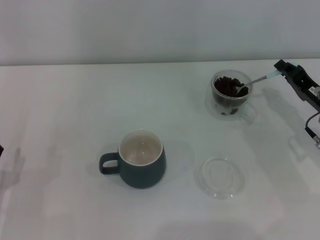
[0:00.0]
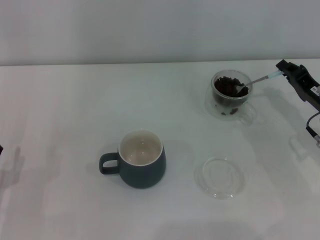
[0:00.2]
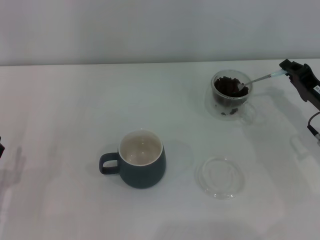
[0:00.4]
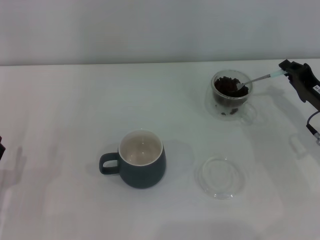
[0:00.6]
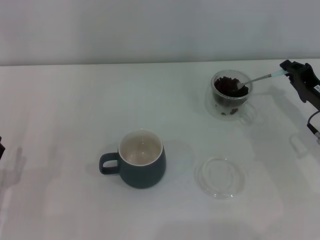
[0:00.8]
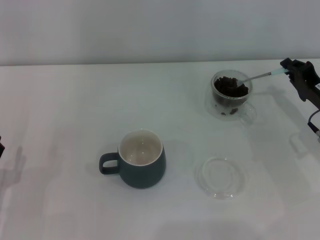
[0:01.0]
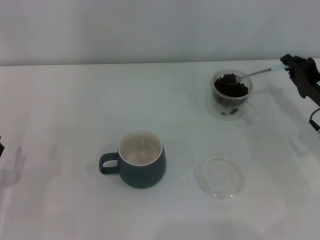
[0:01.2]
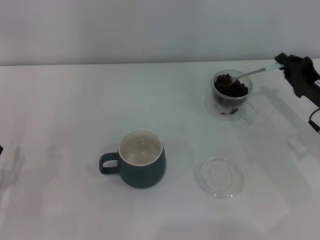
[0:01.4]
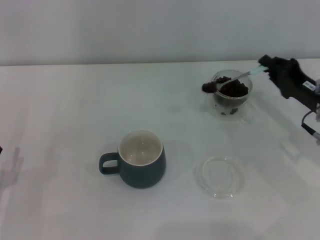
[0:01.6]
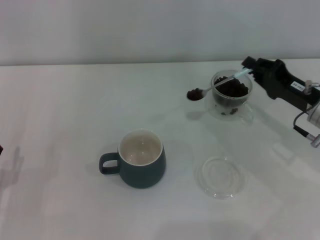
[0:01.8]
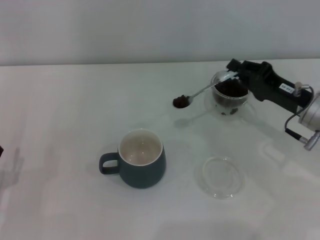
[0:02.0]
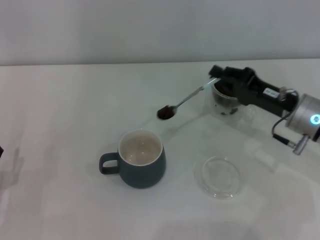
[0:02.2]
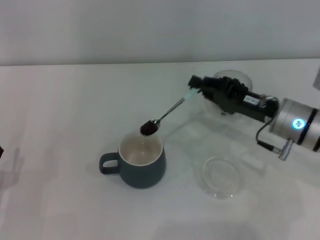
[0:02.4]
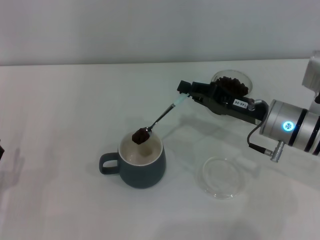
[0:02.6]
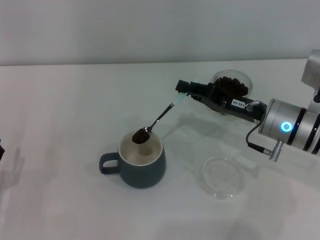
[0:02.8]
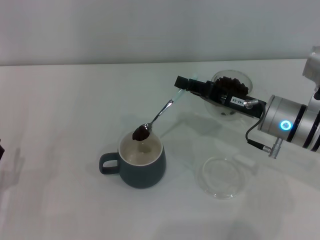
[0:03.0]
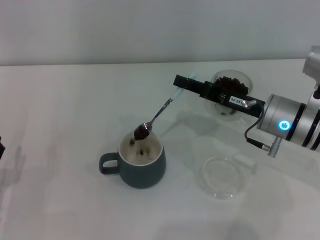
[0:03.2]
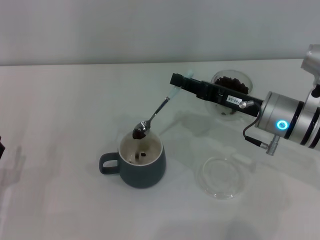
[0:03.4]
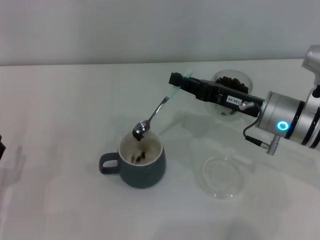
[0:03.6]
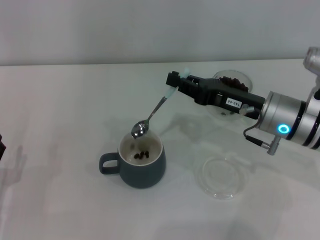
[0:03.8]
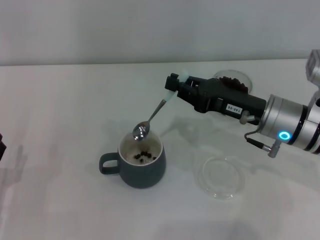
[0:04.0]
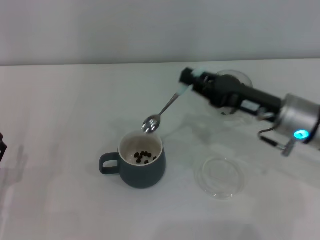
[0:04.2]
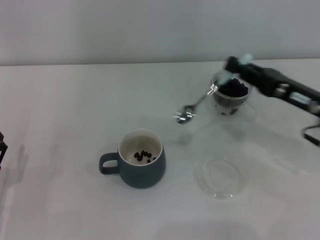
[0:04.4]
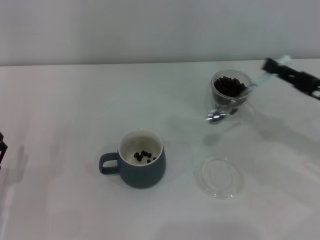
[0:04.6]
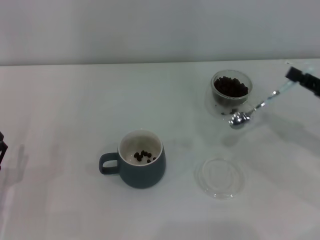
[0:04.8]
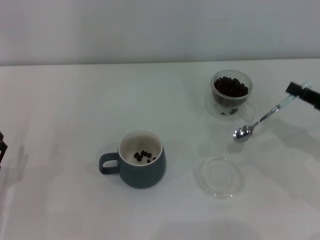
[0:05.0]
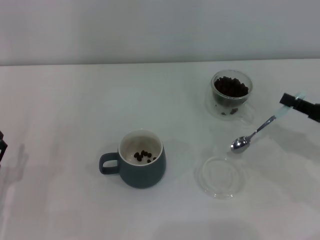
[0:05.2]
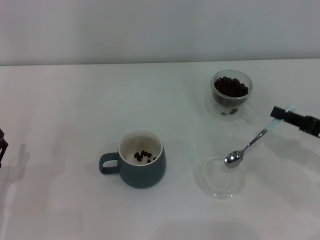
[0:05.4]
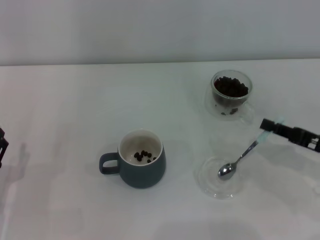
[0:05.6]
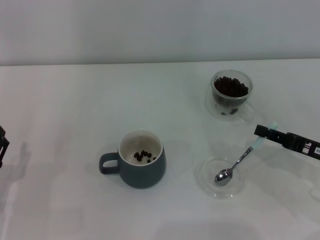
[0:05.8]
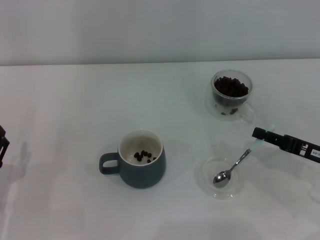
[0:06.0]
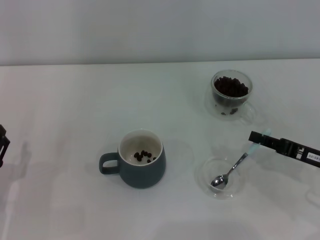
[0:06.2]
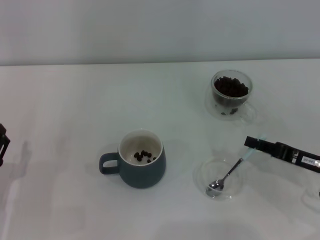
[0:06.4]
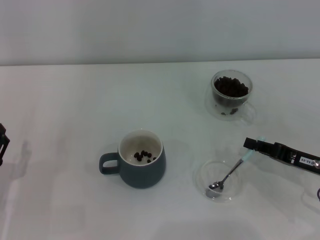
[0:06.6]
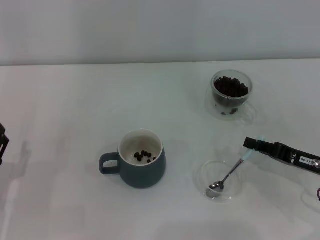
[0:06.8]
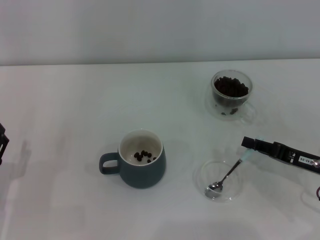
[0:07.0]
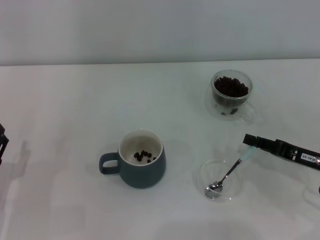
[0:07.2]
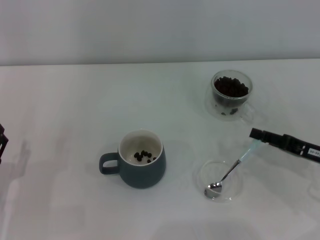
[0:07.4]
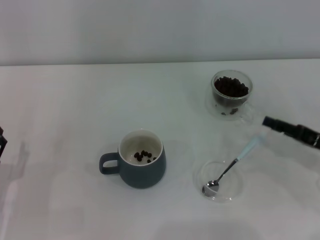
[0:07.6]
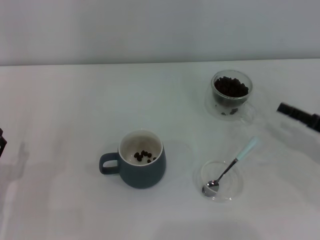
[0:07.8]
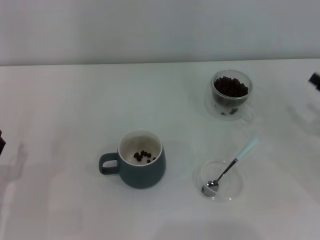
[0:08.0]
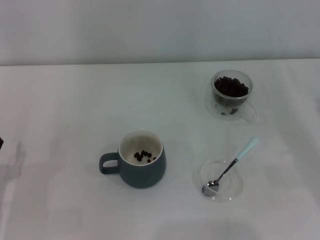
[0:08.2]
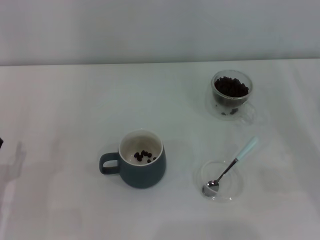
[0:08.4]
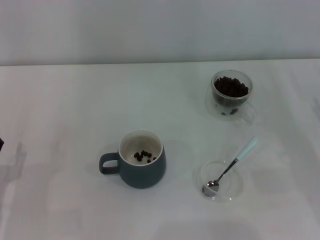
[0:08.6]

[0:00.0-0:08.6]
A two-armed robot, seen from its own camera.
Task of the whole recording: Use a blue spoon to take out the coffee beans from the glass and pour them into the gray cup.
Step, 0:00.0 to 0:03.8: Scoop a spoonful of beans into the cup with the right gripper.
Step, 0:04.0 to 0:07.4: Place the spoon back in its original place with the right gripper.
0:00.0 to 0:01.4: The grippers move only a little.
0:01.4 to 0:02.8: The right gripper is displaced to the left by roughly 10 cm.
0:02.8 to 0:04.4: The right gripper goes some 5 cm to the right.
0:04.4 to 0:05.8: The right gripper moves downward and to the right, approximately 10 cm.
0:05.8 to 0:07.2: The grippers stay close to where they were, moving slightly.
0:07.2 to 0:08.6: The right gripper goes approximately 5 cm to the right, and opens.
